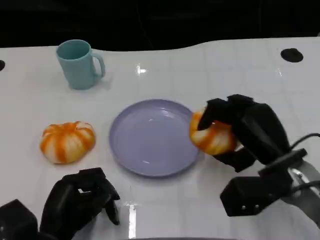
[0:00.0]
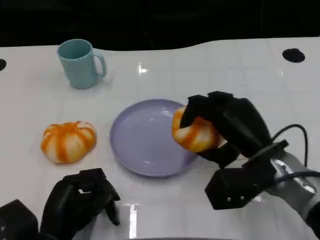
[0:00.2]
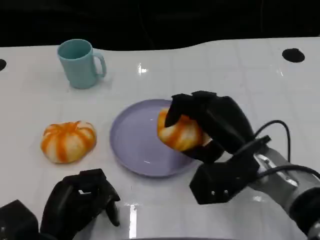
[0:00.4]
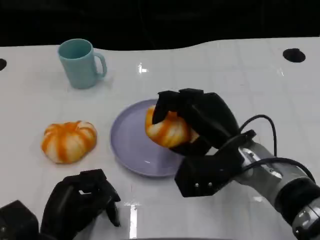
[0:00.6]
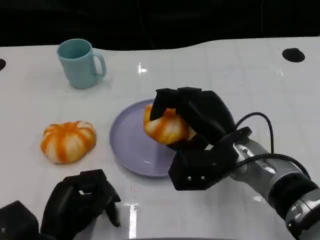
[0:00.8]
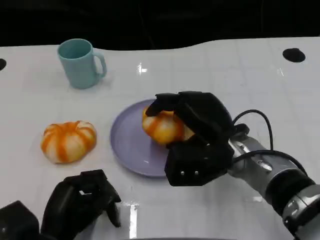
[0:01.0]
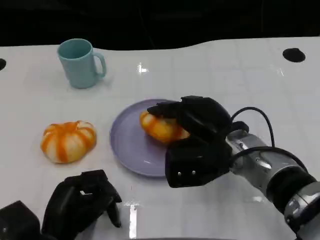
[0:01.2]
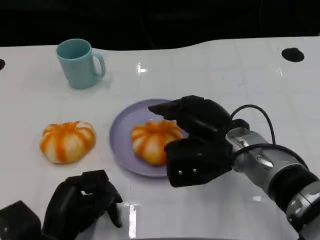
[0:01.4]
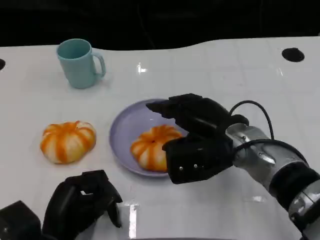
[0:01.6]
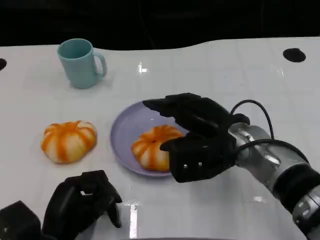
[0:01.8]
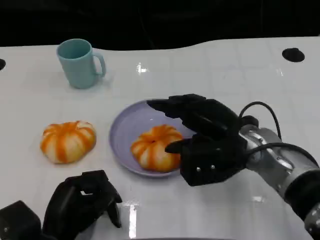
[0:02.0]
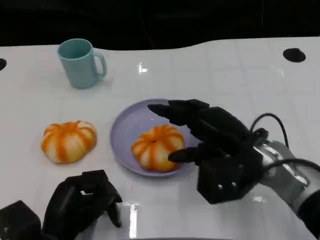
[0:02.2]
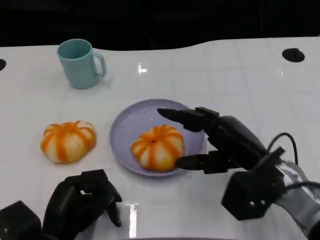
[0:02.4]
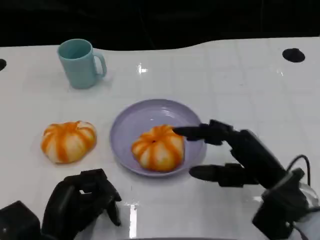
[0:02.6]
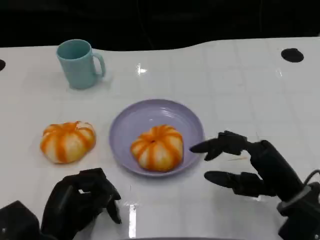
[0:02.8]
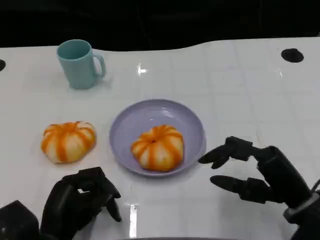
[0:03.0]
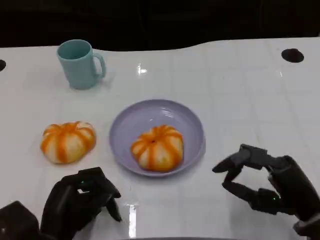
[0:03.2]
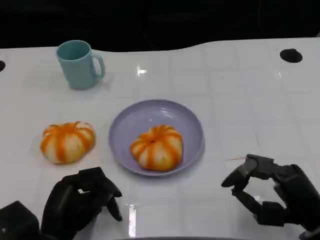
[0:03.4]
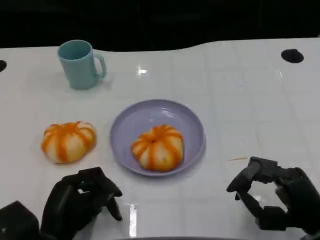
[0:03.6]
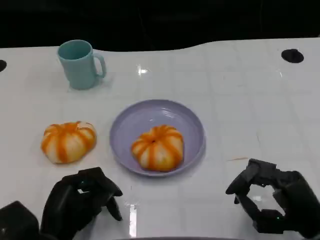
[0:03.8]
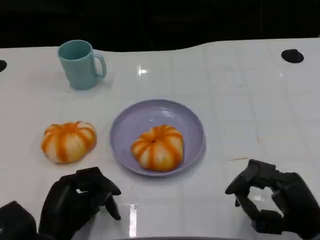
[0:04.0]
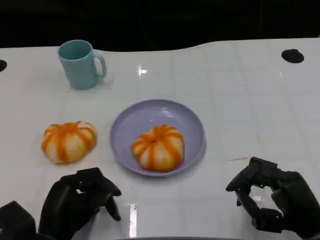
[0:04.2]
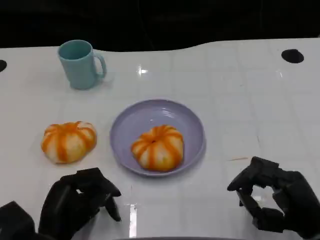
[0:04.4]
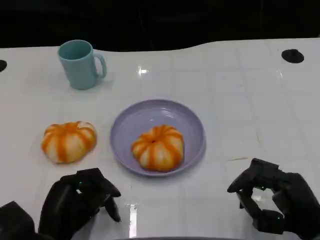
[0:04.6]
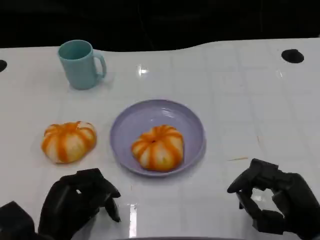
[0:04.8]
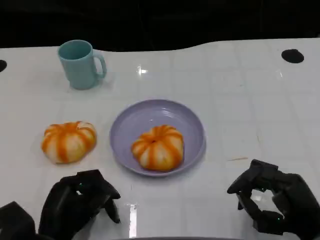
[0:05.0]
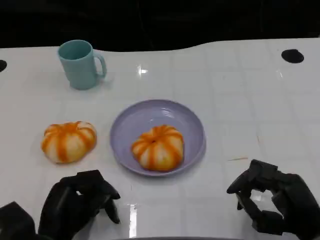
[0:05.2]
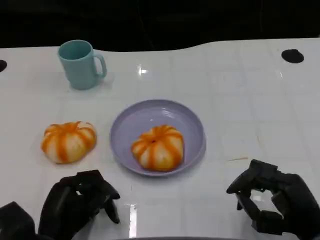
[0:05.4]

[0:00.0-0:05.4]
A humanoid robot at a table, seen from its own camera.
Task of the whole recording: Grasp the bread from the table and place it into the plate.
0:00.0 to 0:01.4: The right hand travels to the left by approximately 5 cm.
0:01.4 to 0:02.8: The right hand goes some 15 cm to the right and backward.
0:02.8 to 0:04.0: The right hand shifts by approximately 5 cm.
0:04.0 to 0:05.4: Neither hand changes place.

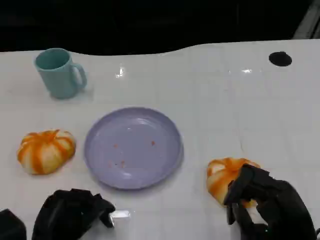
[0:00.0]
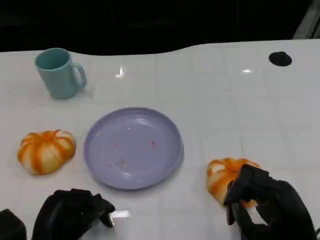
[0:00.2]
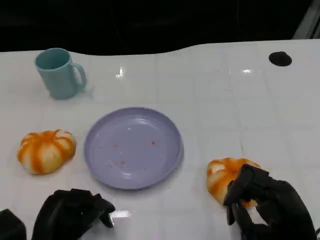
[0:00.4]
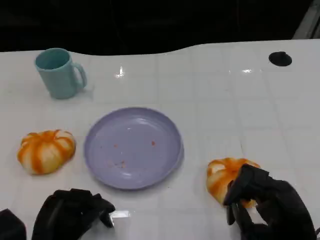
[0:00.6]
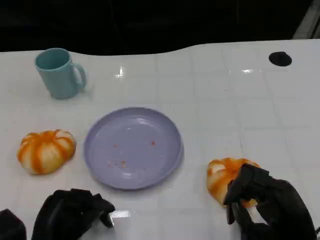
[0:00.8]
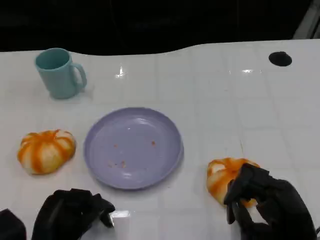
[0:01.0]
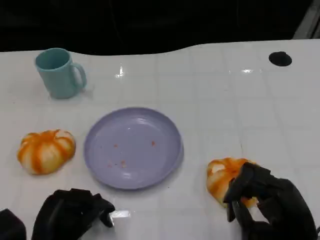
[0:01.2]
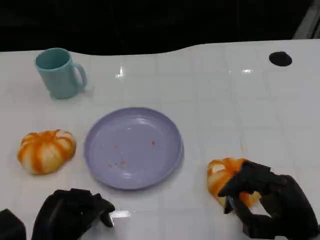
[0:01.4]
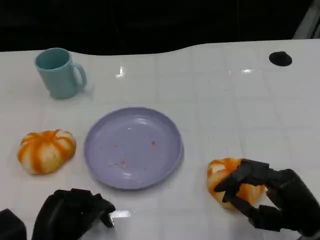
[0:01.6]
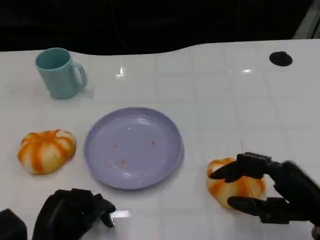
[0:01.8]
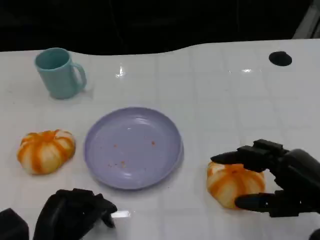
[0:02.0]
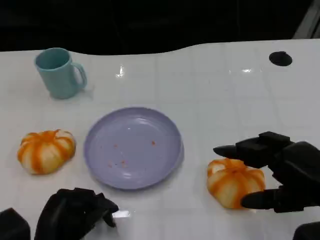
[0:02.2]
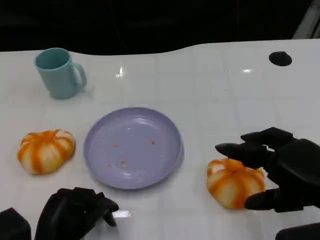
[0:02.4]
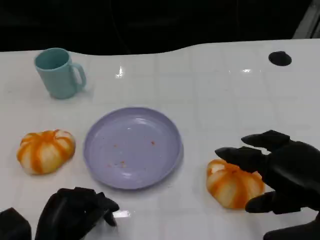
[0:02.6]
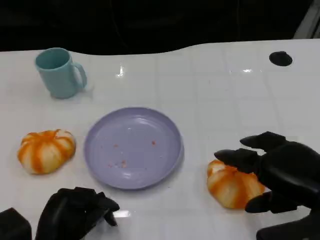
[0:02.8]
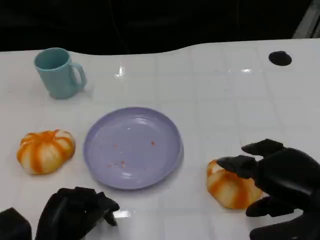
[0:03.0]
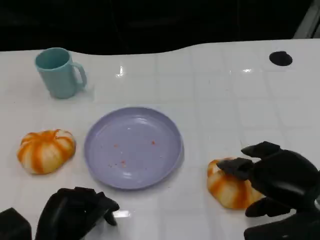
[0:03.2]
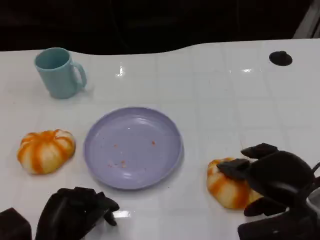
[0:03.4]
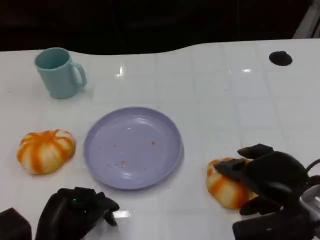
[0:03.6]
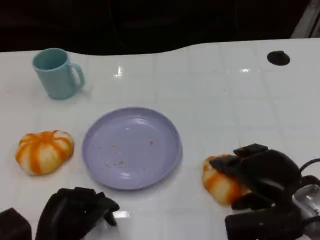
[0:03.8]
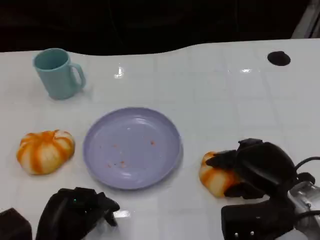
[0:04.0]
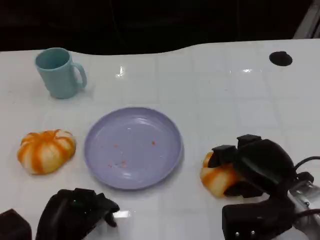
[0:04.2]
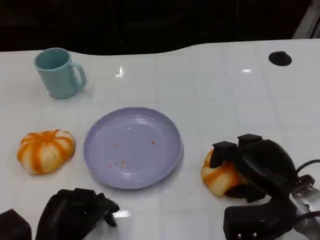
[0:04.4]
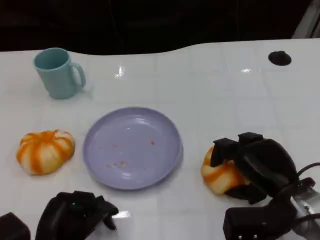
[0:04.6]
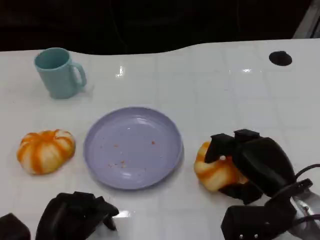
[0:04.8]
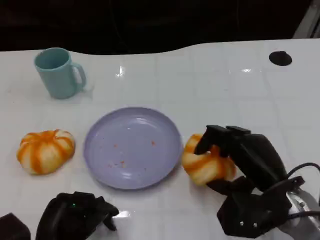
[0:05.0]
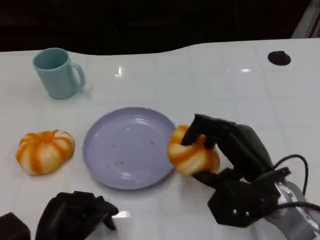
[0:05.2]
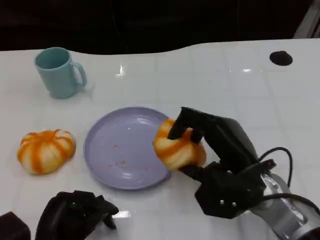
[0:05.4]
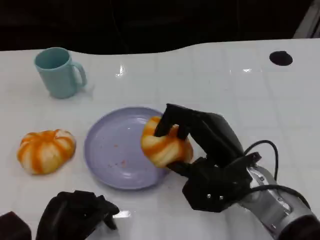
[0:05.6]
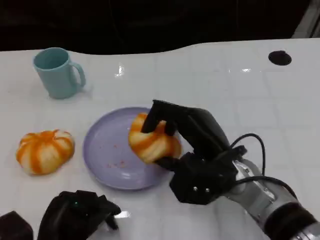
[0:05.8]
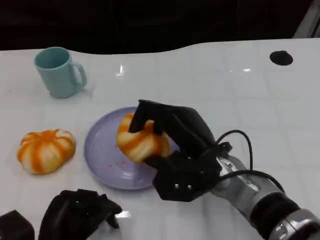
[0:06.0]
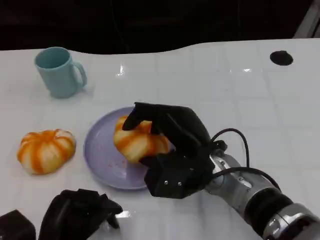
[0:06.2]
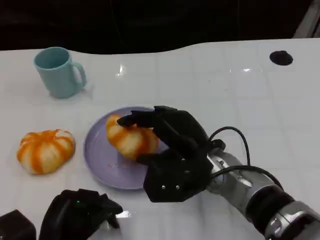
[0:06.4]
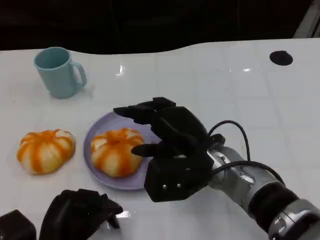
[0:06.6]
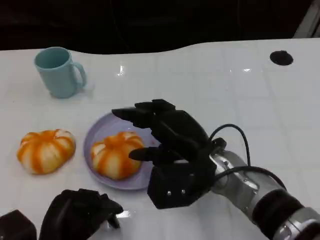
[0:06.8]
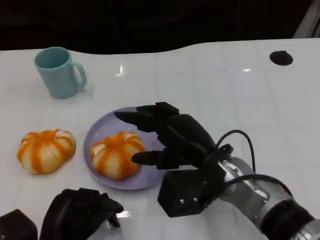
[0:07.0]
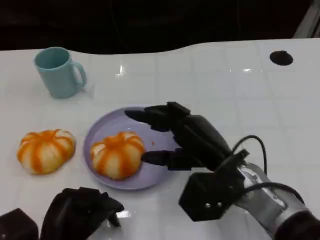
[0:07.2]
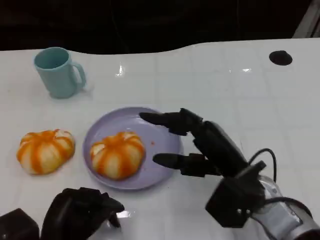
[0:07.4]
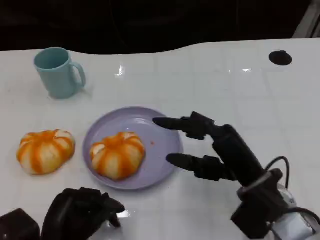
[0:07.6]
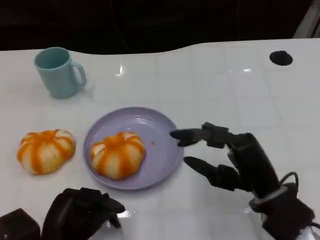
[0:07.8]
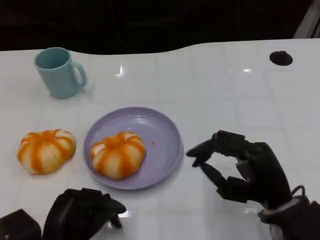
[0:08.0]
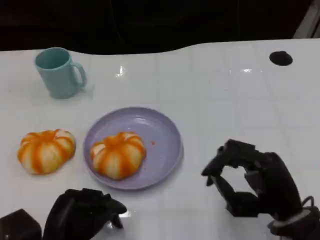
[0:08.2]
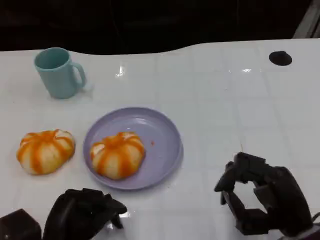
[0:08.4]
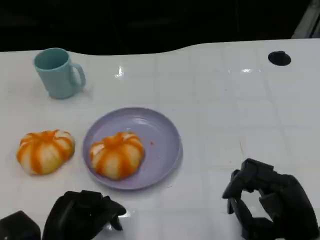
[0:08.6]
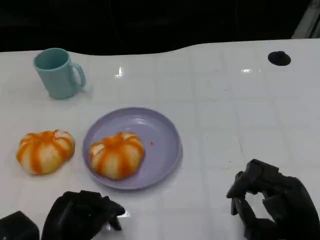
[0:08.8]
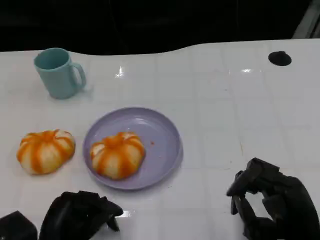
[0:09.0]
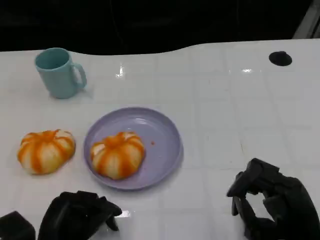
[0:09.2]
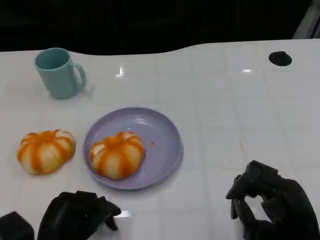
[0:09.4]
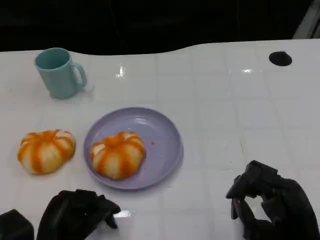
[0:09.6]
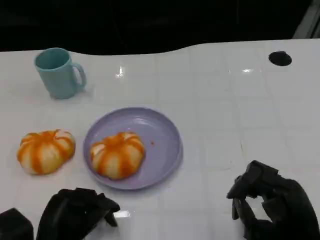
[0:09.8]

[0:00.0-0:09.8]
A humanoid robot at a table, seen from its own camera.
Task of the whole recording: Grasp the bread from the table and place it into the plate.
0:00.0 to 0:01.4: The hands make only small movements.
0:01.4 to 0:02.8: The right hand shifts approximately 10 cm upward.
0:02.8 to 0:04.2: The right hand heads downward, covering approximately 5 cm.
0:04.2 to 0:05.6: The right hand travels to the left by some 10 cm.
0:05.6 to 0:07.0: The hands move only a little.
0:07.0 to 0:08.4: The right hand heads to the right and backward, covering roughly 15 cm.
0:08.4 to 0:09.8: The hands make only small movements.

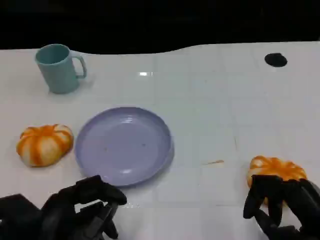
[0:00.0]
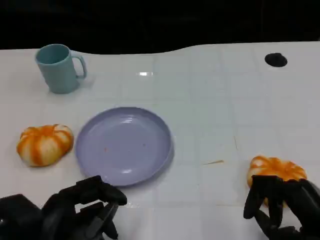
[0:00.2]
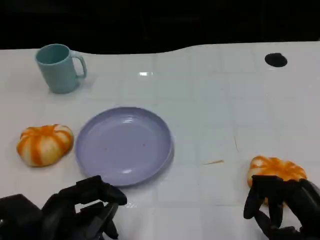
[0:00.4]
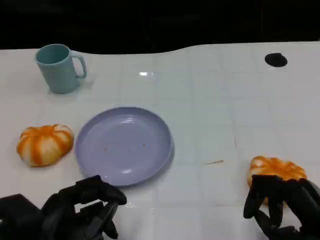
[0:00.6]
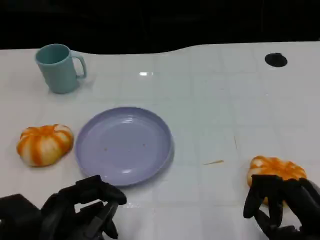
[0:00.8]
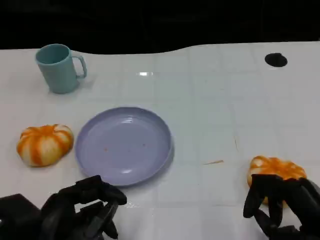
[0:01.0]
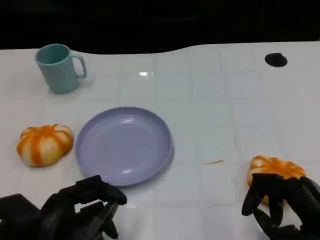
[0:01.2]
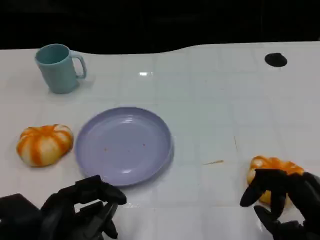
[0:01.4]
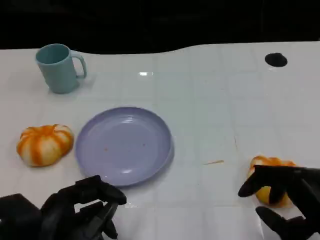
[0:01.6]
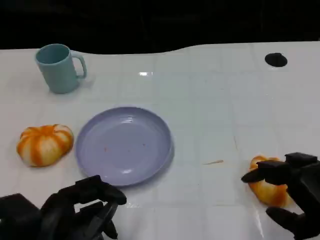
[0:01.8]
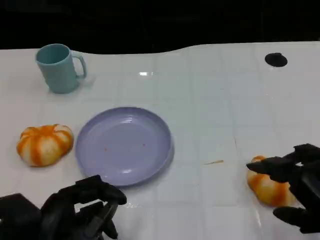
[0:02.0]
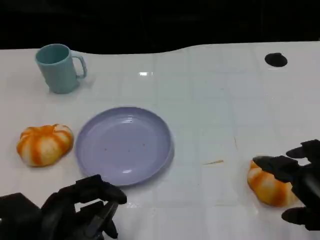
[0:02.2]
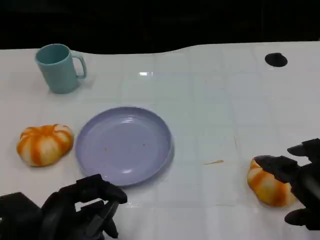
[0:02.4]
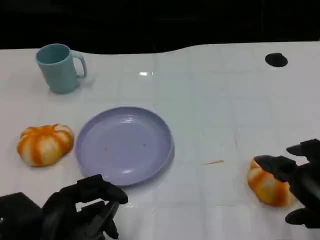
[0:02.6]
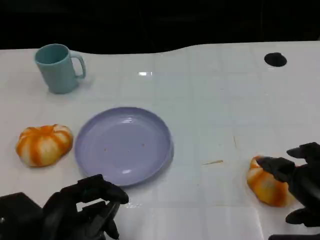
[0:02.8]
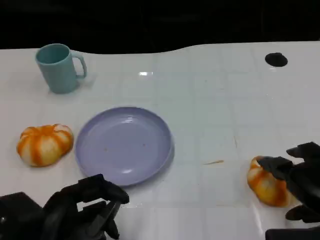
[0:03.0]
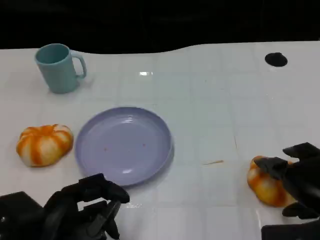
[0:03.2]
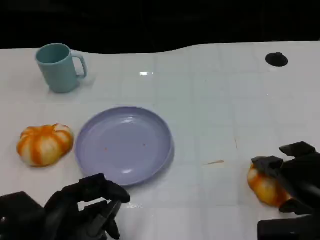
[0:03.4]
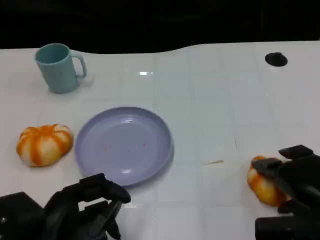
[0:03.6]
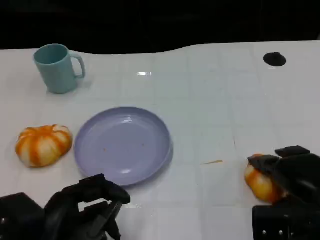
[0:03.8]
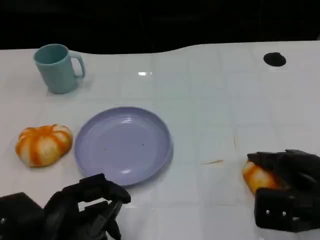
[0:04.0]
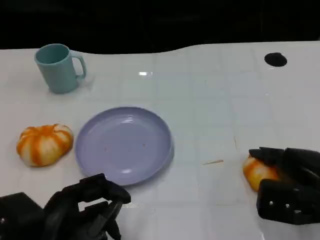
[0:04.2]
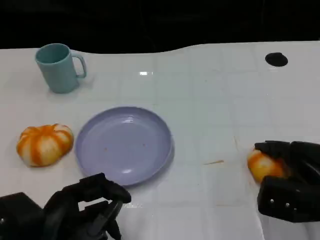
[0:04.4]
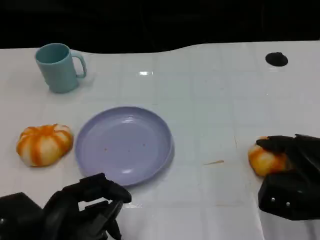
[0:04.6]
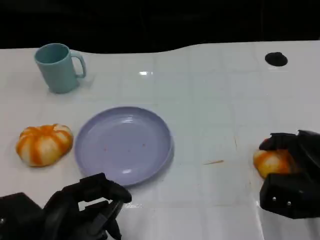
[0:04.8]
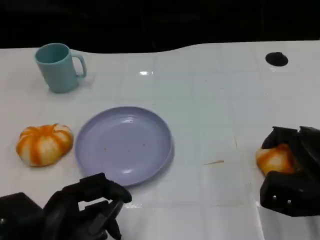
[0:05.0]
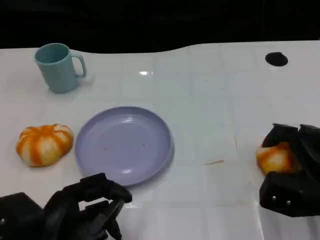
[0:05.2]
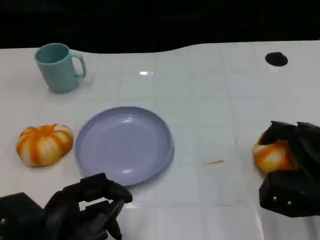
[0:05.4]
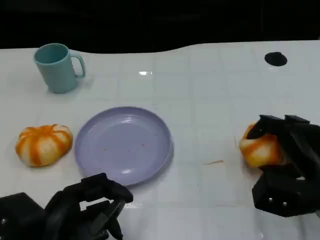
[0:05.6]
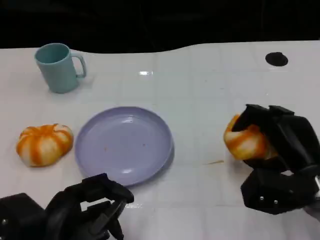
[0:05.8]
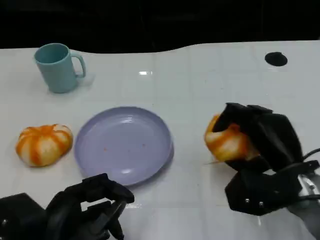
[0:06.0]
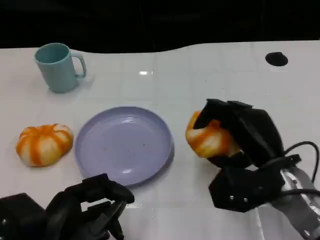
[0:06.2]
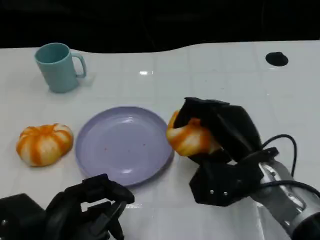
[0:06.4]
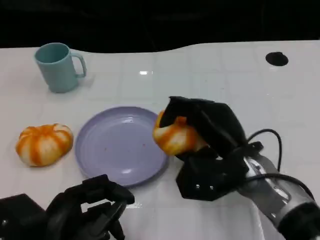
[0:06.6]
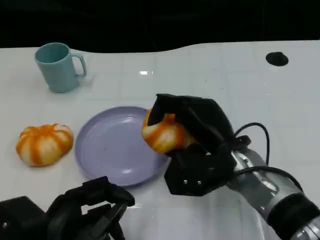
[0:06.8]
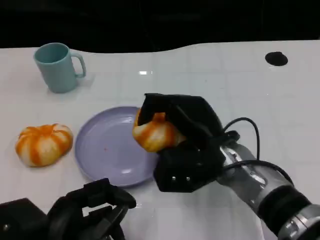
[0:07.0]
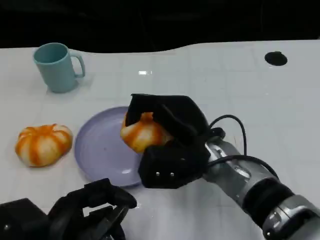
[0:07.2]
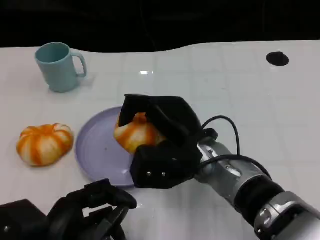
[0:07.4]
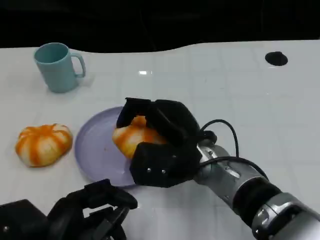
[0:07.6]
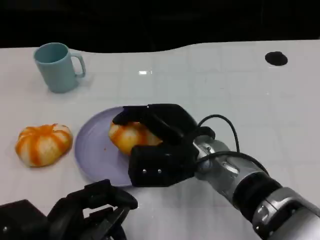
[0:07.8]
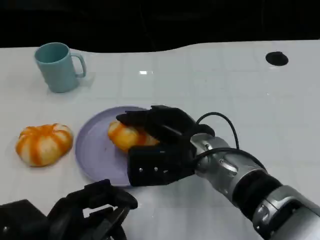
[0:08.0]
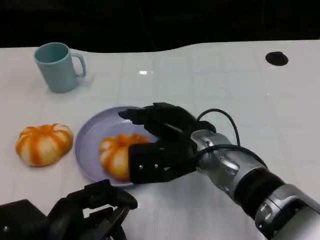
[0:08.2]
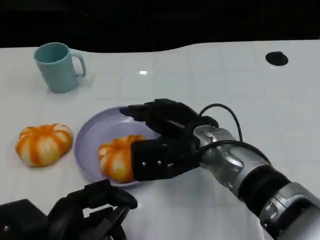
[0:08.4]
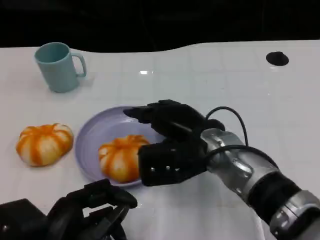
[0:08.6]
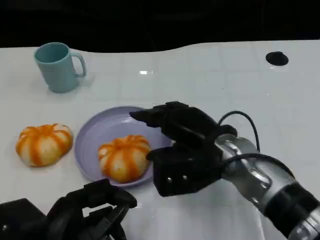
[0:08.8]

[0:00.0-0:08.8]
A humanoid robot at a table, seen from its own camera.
Task of the whole recording: Grasp the bread from the table and place it into the plate.
0:00.0 to 0:01.4: The hands stay close to where they were, moving slightly.
0:03.0 to 0:04.4: The right hand moves forward, about 5 cm.
0:05.8 to 0:07.4: The right hand travels to the left by some 15 cm.
0:07.4 to 0:08.8: The right hand heads to the right, covering about 5 cm.
